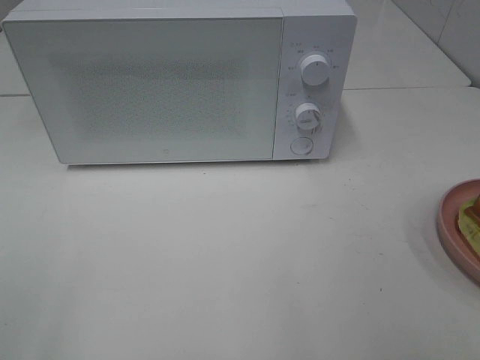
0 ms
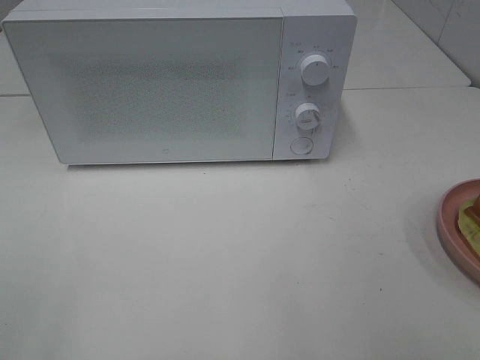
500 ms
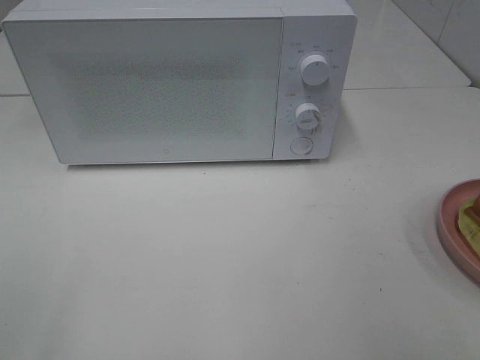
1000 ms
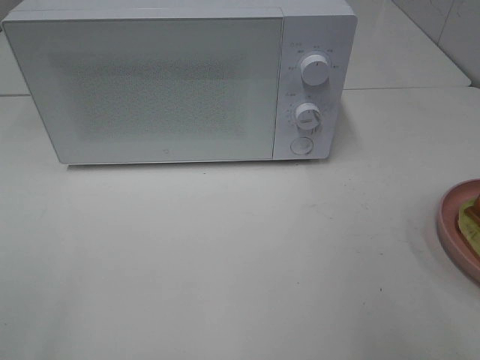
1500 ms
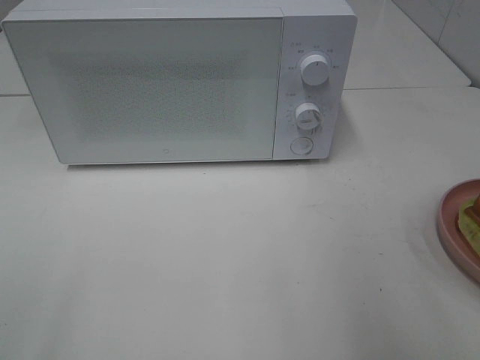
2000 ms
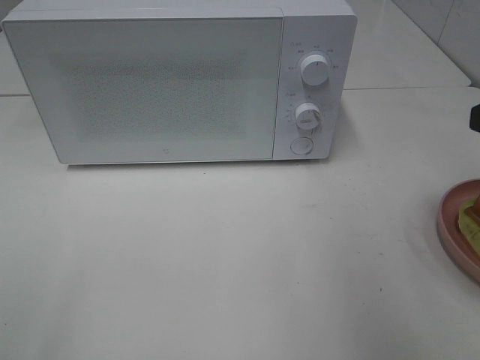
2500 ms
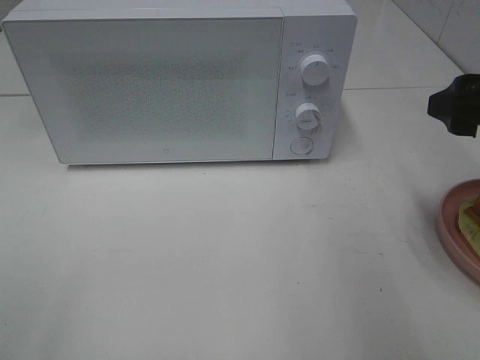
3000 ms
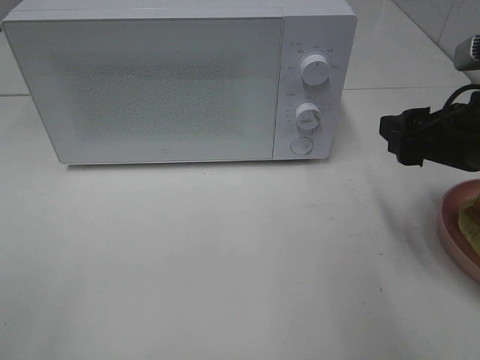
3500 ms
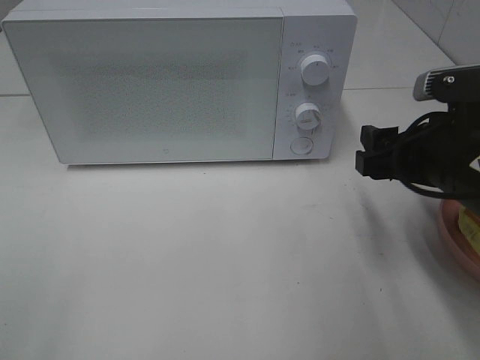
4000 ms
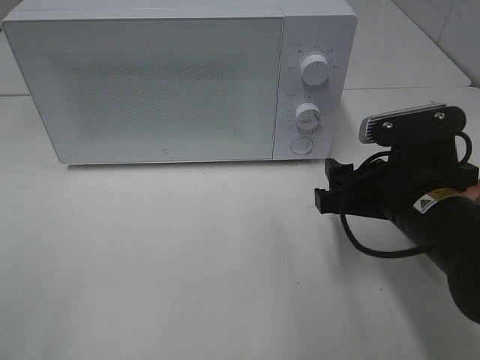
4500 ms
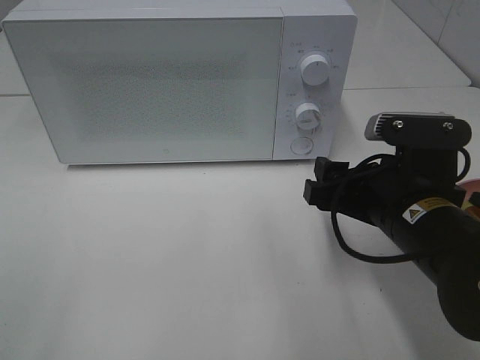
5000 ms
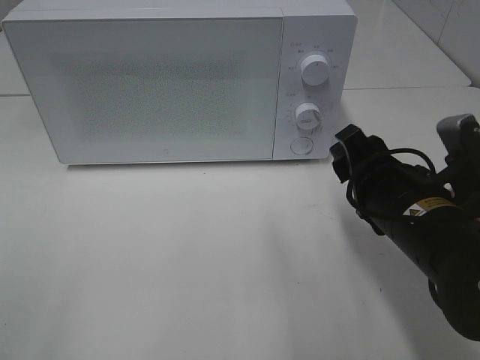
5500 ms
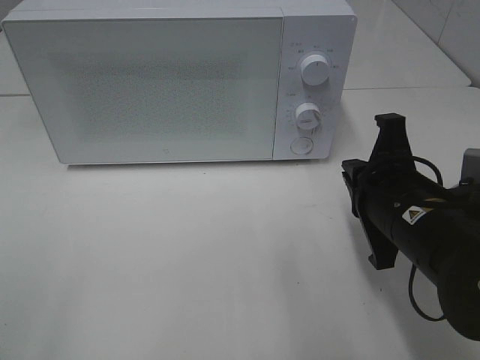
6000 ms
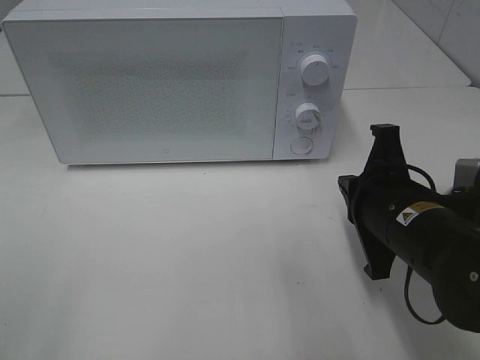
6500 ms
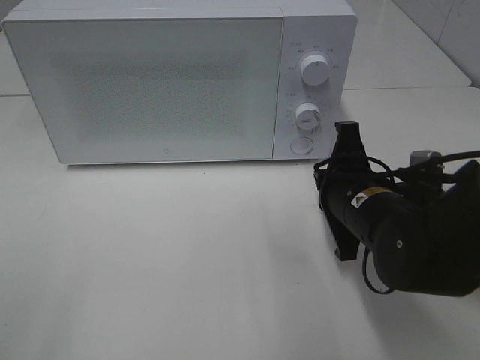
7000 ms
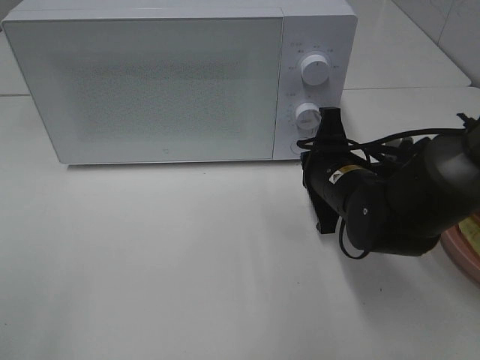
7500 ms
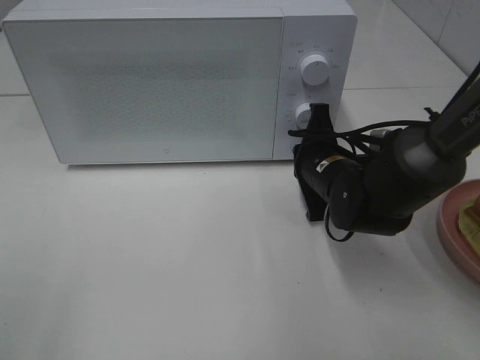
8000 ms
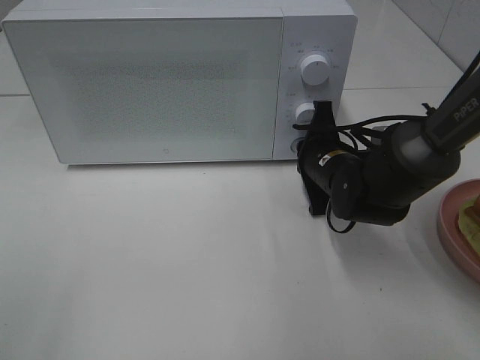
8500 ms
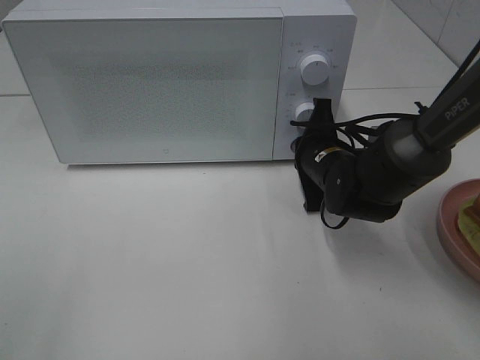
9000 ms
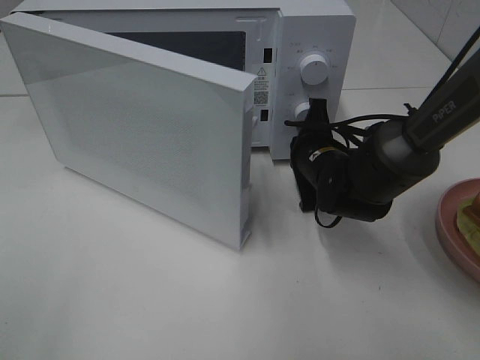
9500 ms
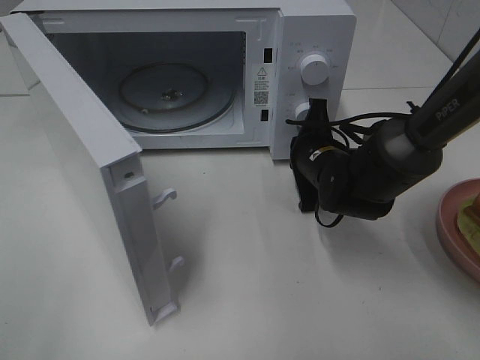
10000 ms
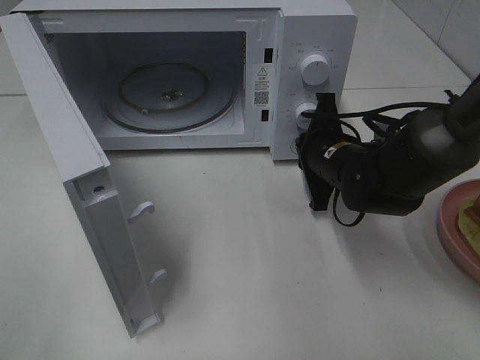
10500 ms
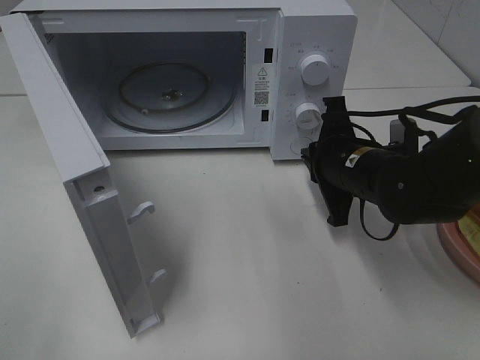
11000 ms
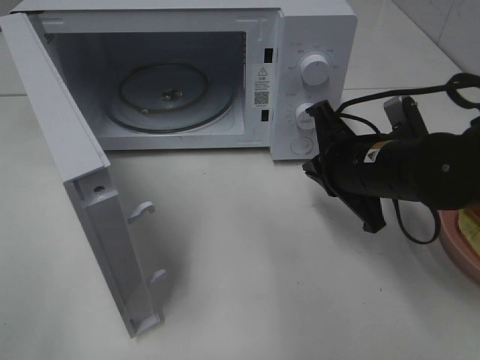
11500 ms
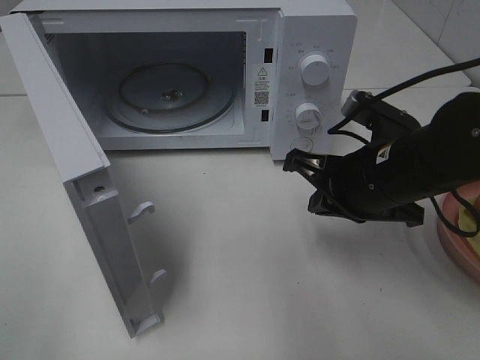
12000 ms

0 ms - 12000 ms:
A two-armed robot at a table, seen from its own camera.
Task of the whole recording: Heat Sandwich.
Step, 0 ms - 10500 ms: Right hand: press the switch.
2000 ms - 4000 ms: The right gripper moves downward, forward and to the left, about 15 cm.
4000 ms - 6000 ms: The right gripper changes place by roughly 5 cm, and closes up.
6000 ms - 8000 ms: The right gripper shifts some 15 cm forward and downward.
10000 ms - 12000 ms: The right gripper heads backward and upward, covering approximately 15 cm.

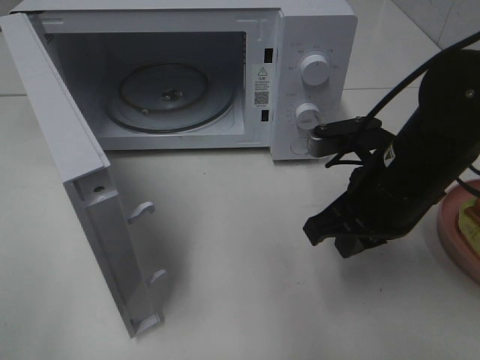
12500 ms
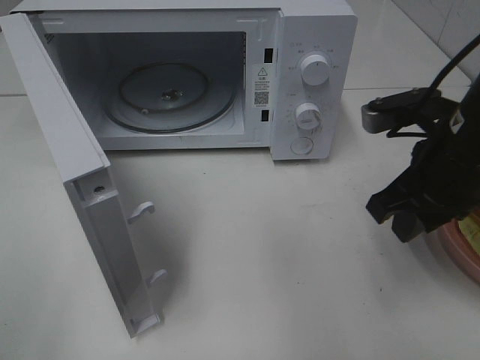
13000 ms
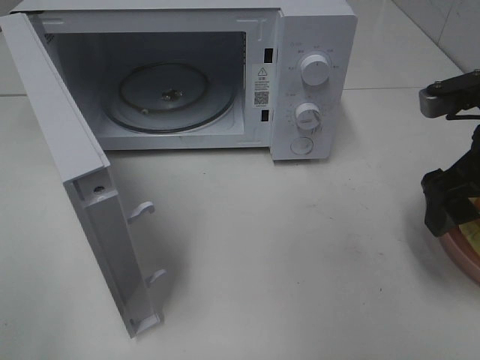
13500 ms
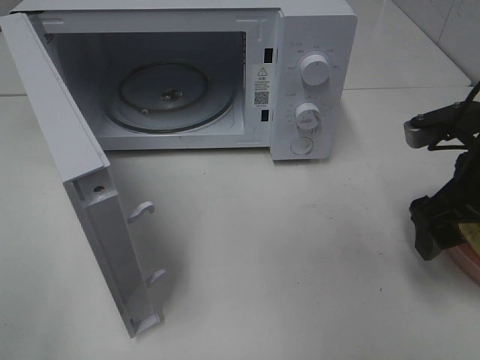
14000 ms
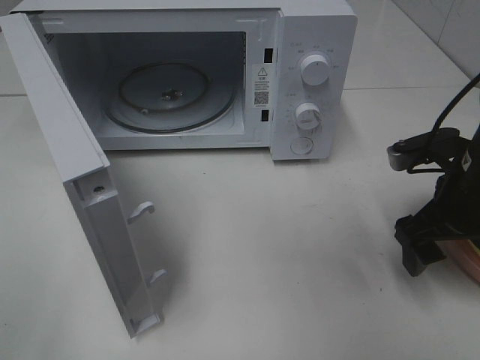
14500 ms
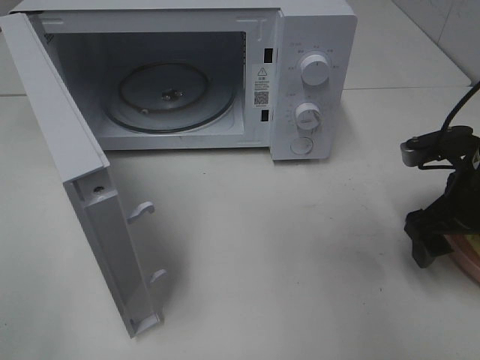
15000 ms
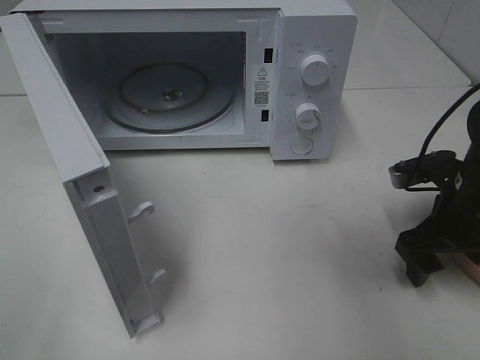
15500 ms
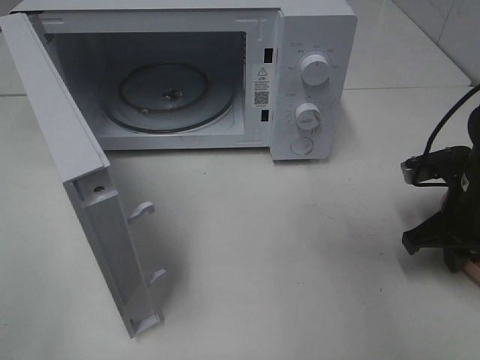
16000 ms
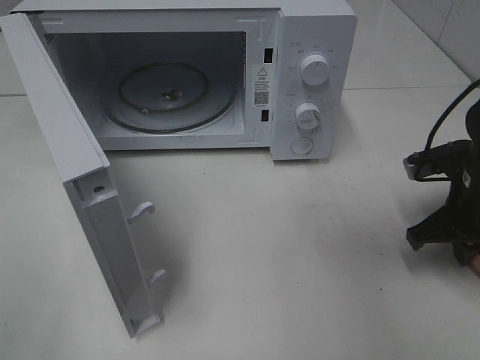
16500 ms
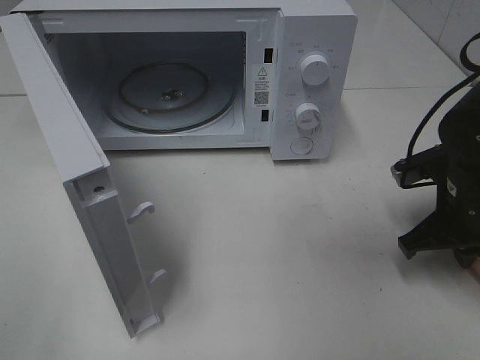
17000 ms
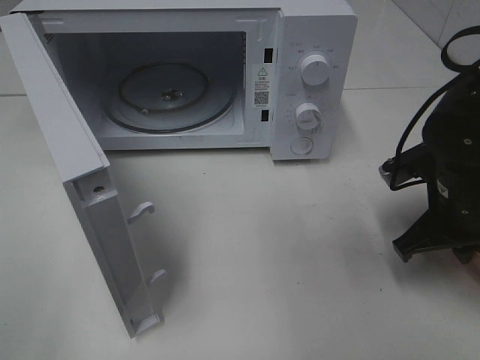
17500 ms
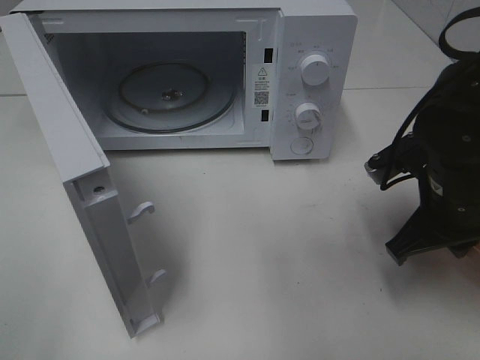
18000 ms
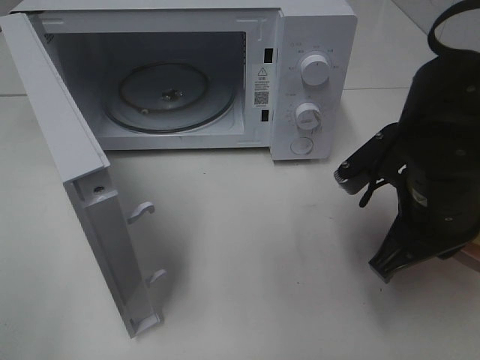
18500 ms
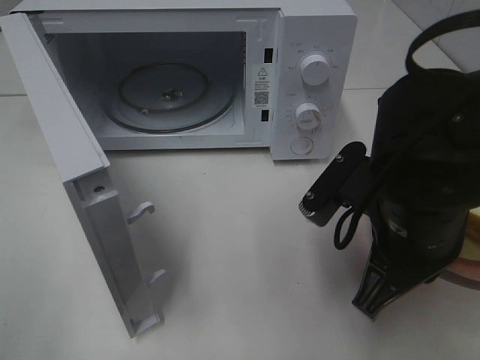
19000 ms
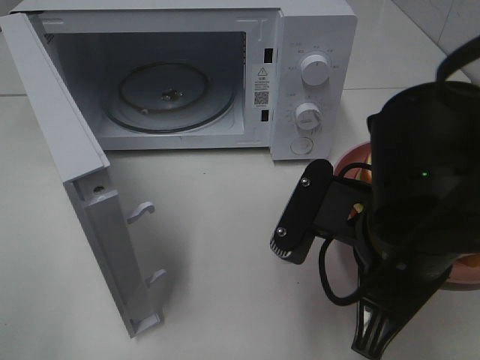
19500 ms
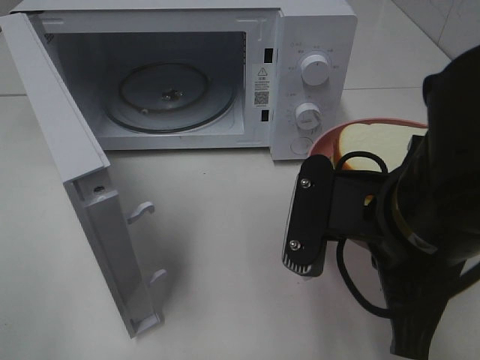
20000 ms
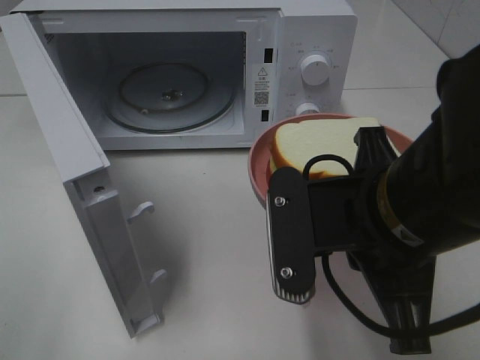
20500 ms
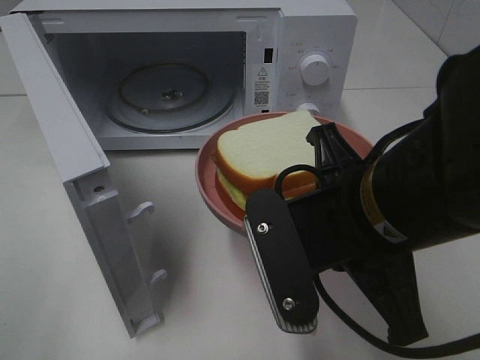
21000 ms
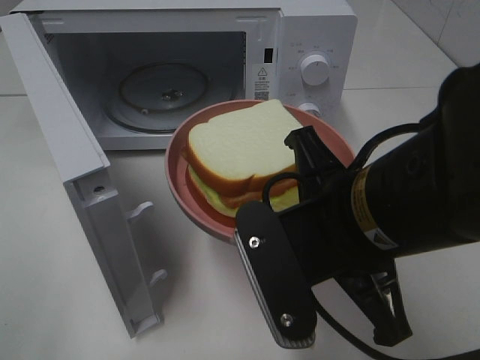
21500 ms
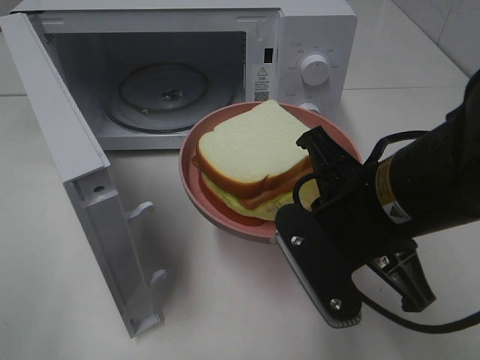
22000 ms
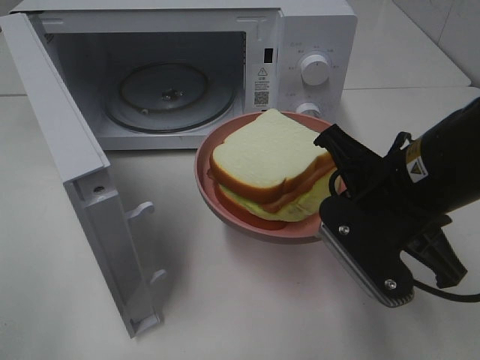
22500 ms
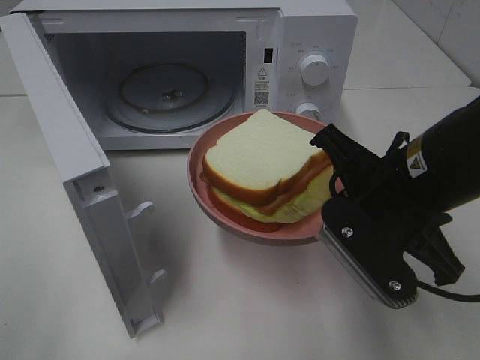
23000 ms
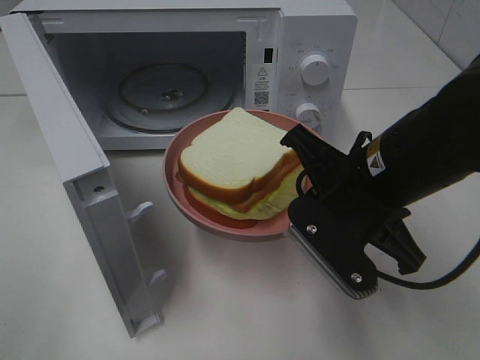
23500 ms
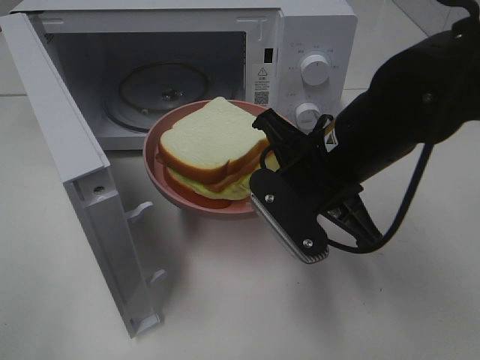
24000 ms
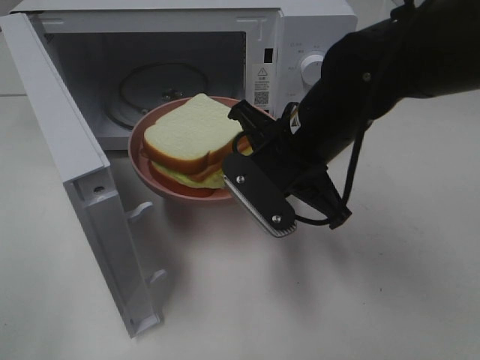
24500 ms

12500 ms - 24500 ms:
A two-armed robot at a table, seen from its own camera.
Task of the whole recording: Heat Sandwich.
Step, 12500 ms - 16000 ms: Right hand: grab the plate with the sandwich.
12500 ms - 14500 ms: The right gripper heads to the right, covering some 10 cm, and opens its fingers.
14500 ms - 16500 ms: The right gripper closes its fingers.
16500 ms - 18500 ms: The right gripper travels to the left, backward and upward by approximately 15 cm.
18500 ms - 20500 ms: The right gripper heads backward and to the left, covering about 10 cm.
20500 ms - 22500 ms: The right gripper heads forward, covering approximately 5 cm.
22500 ms - 24500 ms: The right gripper shifts approximately 10 cm to the left and forward.

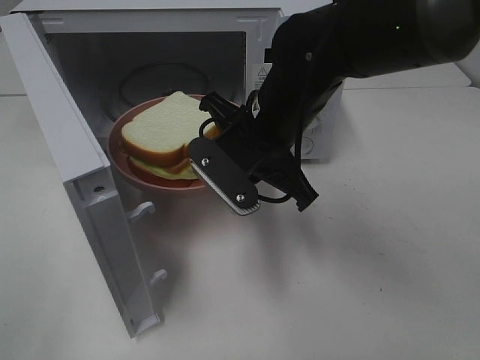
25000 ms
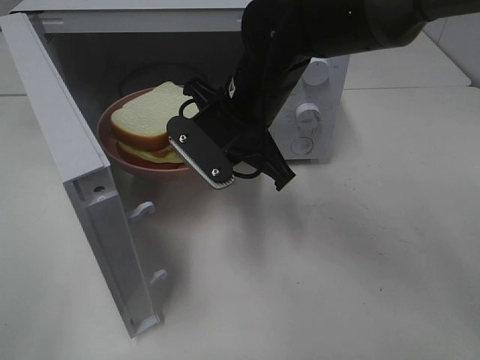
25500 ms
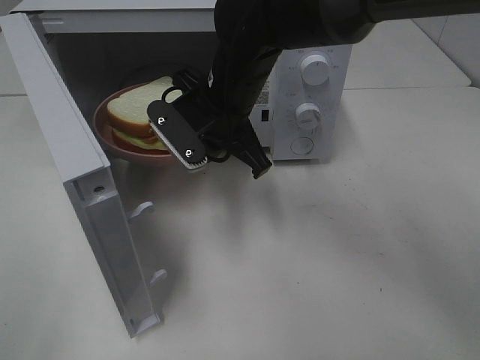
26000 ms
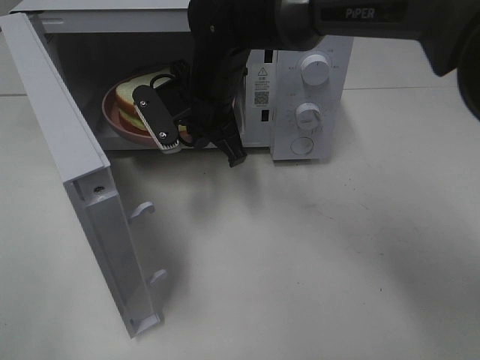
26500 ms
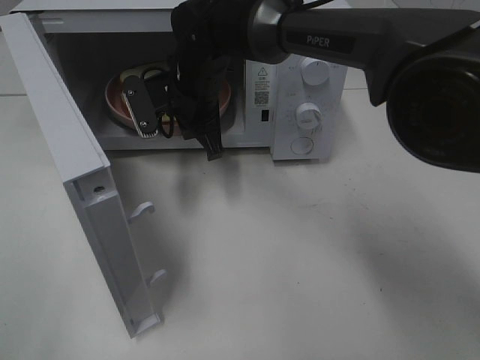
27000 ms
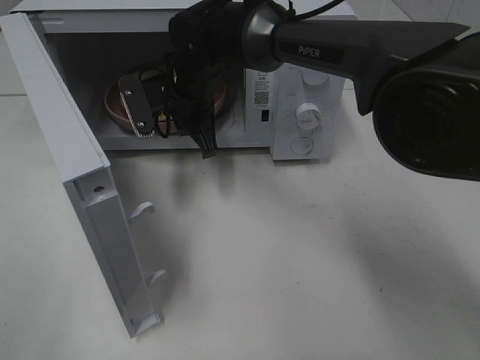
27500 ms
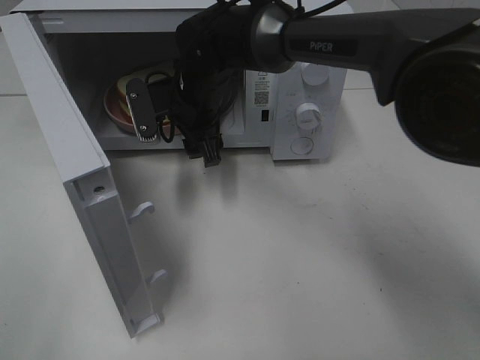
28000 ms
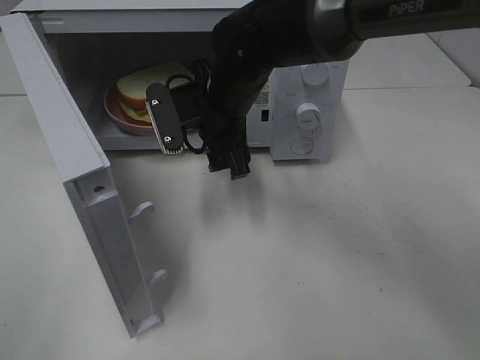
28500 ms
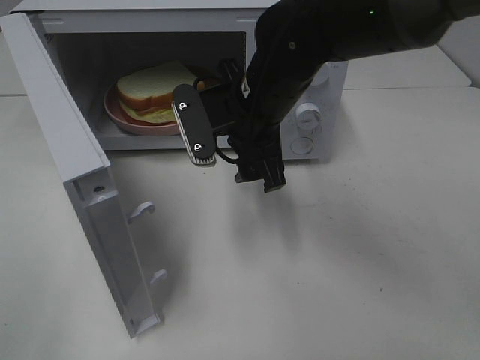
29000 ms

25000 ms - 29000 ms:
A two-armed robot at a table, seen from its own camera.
Task of the whole recording: Heat Sandwich.
Step, 25000 ms - 28500 ms: Right hand: place the plate in the microwave.
25000 ms - 27000 ms: The right gripper travels forward and to the left by about 15 cm.
27000 ms - 29000 ms: The right gripper goes approximately 10 cm backward and to the right, and opens up.
